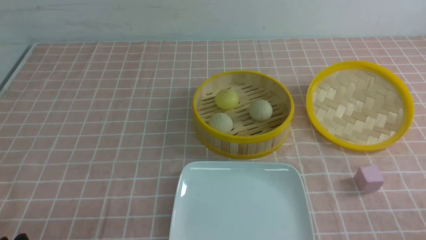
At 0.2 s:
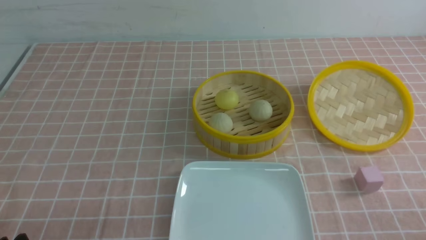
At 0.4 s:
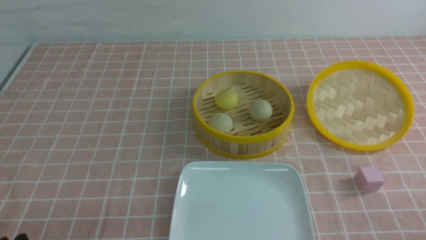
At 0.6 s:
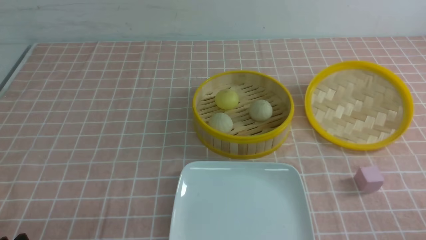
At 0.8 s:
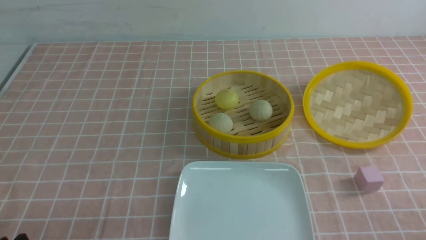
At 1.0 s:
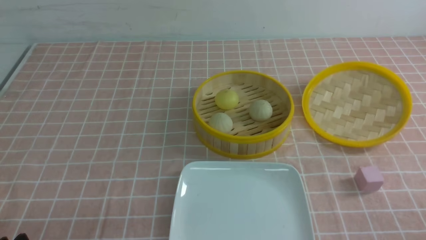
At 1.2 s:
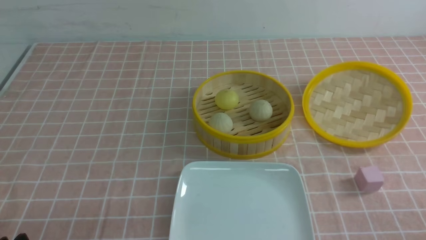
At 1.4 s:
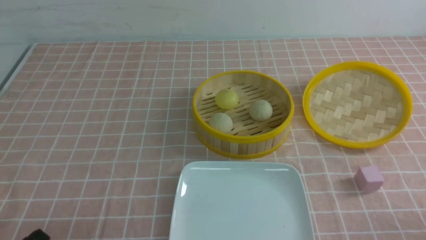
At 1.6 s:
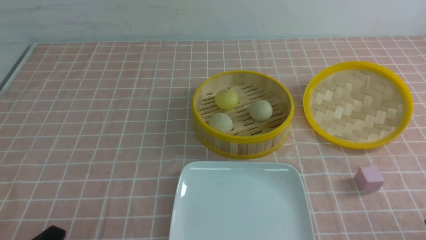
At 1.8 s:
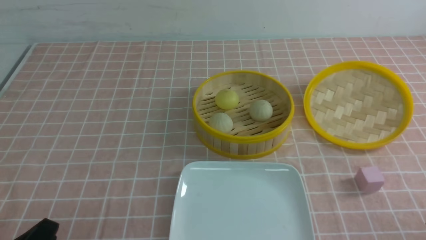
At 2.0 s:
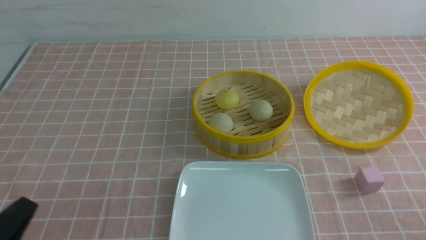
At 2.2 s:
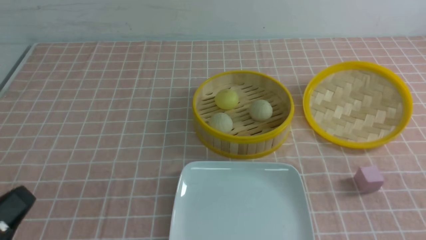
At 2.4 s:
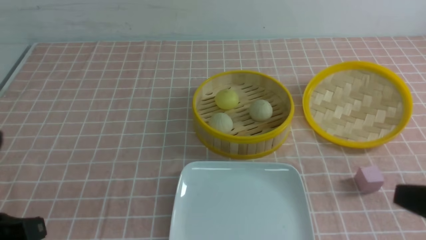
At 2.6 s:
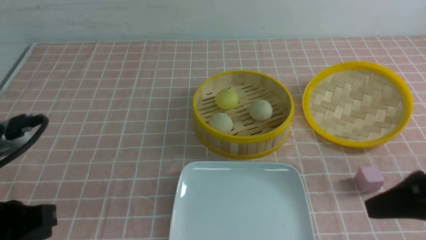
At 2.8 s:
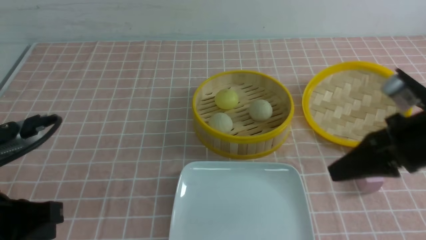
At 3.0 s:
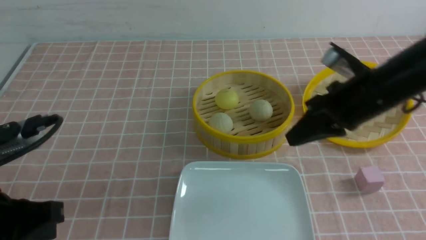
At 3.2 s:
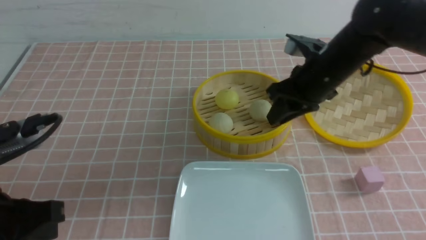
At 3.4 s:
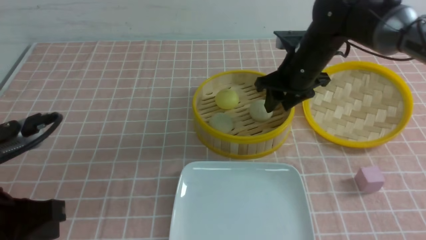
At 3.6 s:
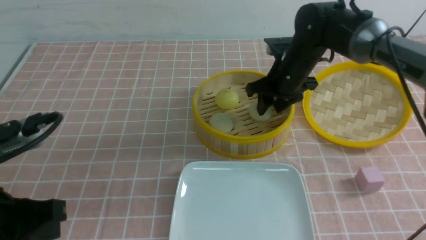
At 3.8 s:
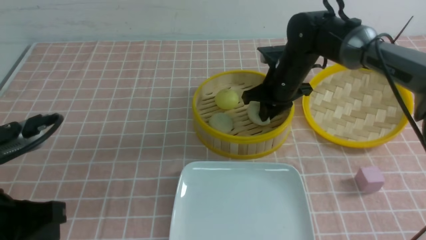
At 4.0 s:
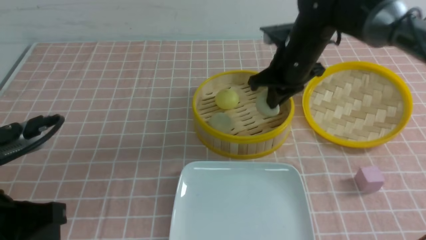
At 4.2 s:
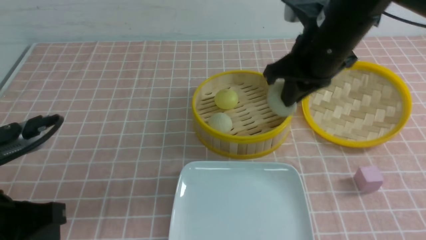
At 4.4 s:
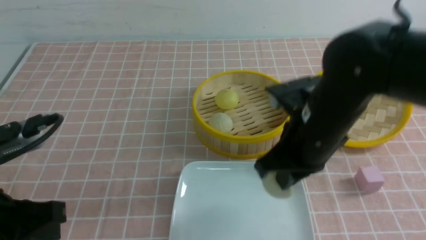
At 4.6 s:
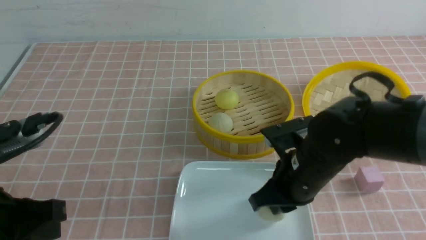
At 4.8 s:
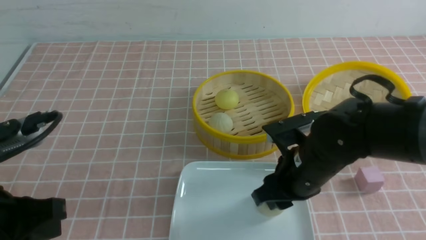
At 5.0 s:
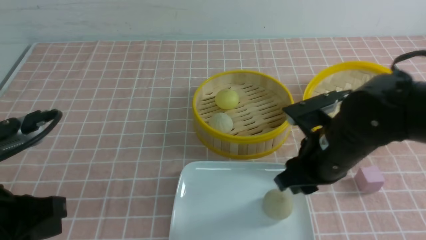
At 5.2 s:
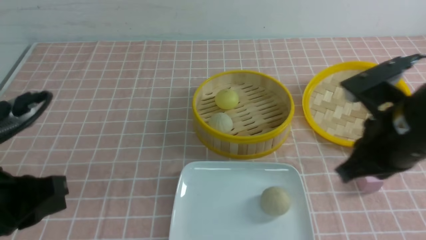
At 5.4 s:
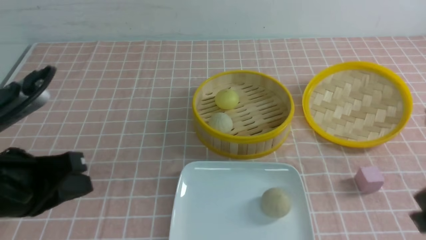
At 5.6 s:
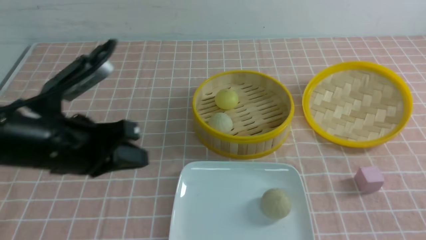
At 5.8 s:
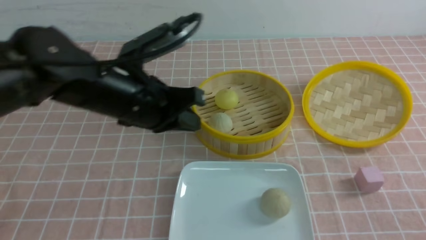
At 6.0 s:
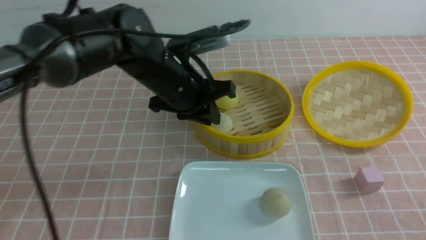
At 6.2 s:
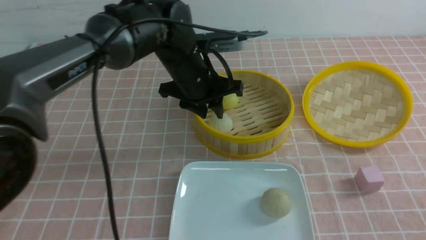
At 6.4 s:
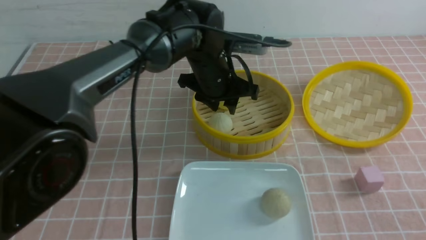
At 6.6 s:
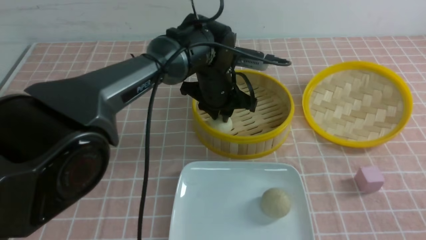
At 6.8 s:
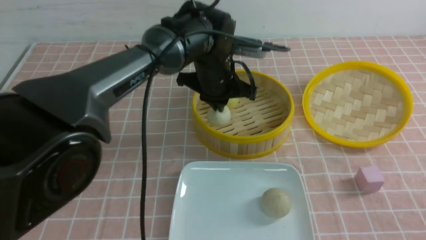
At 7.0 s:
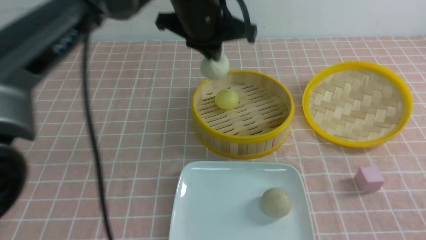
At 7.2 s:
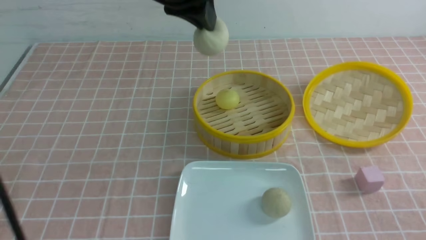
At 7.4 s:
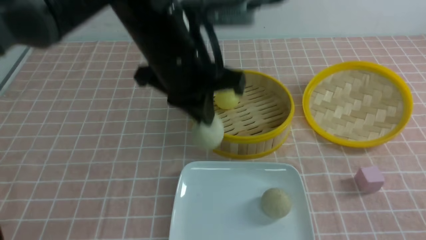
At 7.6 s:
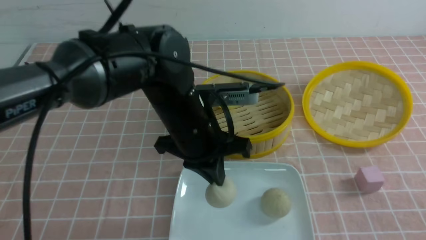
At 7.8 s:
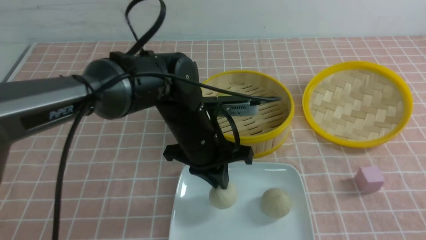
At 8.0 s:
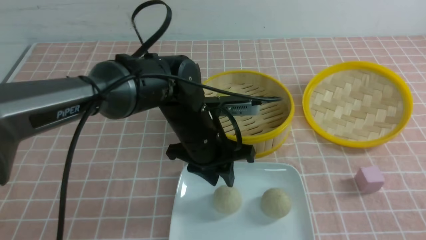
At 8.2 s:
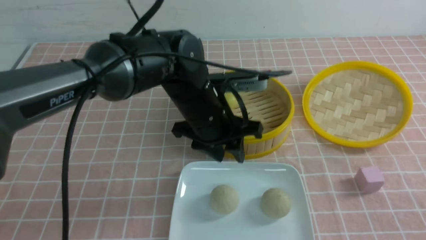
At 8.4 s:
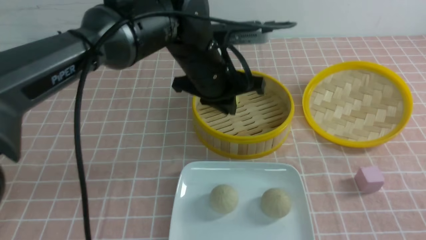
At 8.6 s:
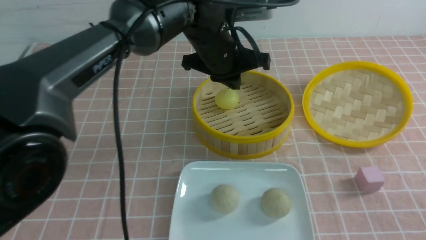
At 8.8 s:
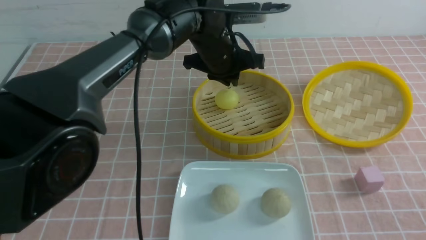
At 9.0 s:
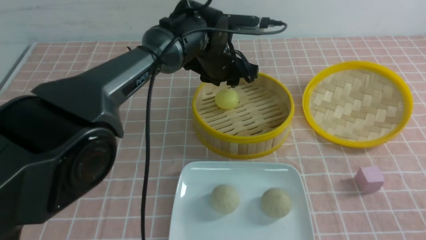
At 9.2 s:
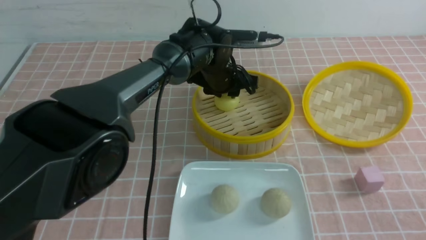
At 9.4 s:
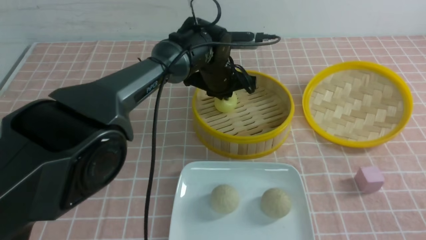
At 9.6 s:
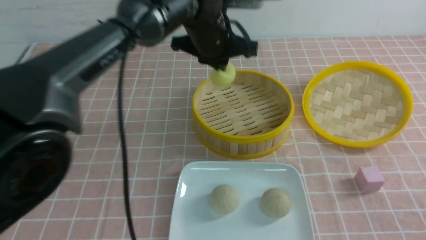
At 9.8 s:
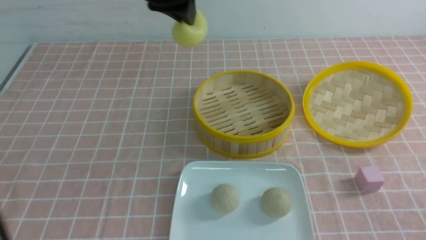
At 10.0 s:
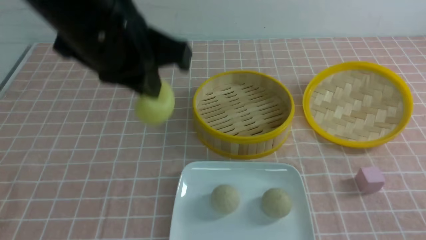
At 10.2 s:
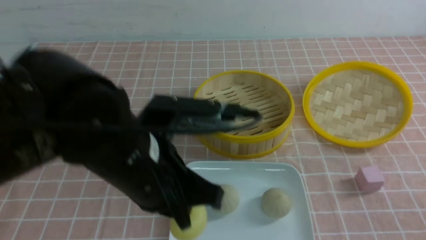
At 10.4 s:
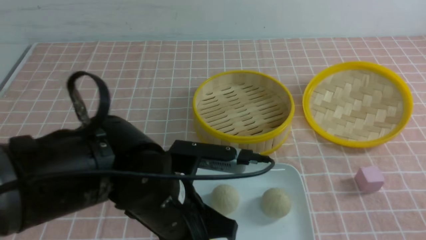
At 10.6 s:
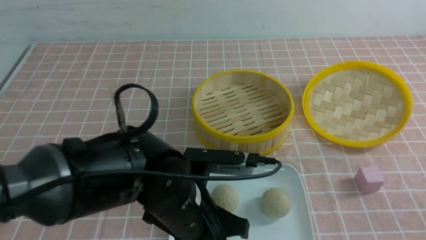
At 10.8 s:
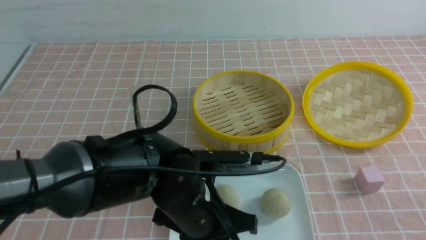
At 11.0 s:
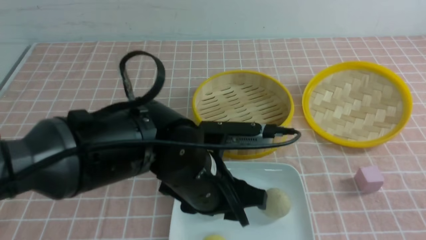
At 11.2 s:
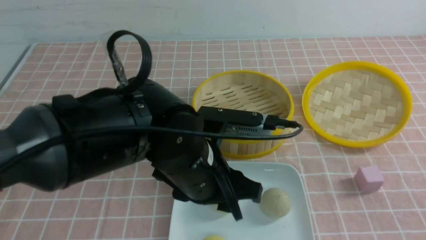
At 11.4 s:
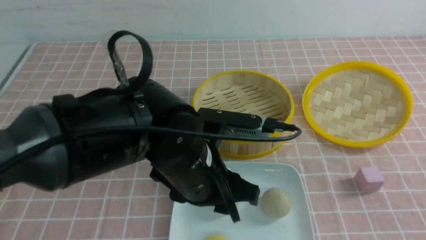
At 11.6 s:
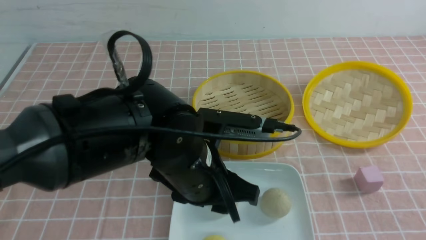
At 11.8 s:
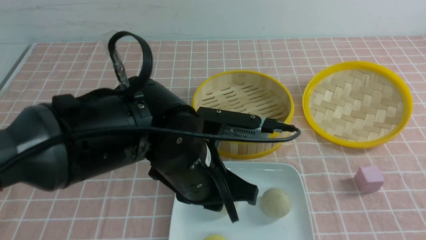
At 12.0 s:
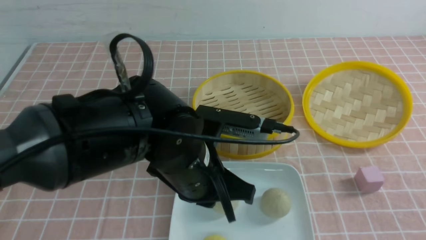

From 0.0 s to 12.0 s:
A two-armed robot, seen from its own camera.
Step, from 0.0 s to 3.8 s: use the right arm to grab the steamed stuffed bun that is closest to it.
Step, from 4.0 s to 4.8 s: use the right arm to put the steamed stuffed bun into the plate.
Step, from 5.0 s to 6.6 s: use the left arm to grab the steamed stuffed bun that is closest to it.
Step, from 6.8 s to 7.8 s: use the left arm to put the steamed stuffed bun into the plate.
Step, from 8.2 s to 9.4 s: use the left arm to grab the steamed stuffed bun that is closest to it.
Step, from 9.6 s to 10.8 s: use the left arm to put the steamed stuffed bun into the plate.
From 1.6 s to 3.0 s: The left gripper shifts roughly 15 cm upward and forward, and closes up. Meanwhile the right gripper moves forward and to the left, some 30 cm, and closes its fingers.
From 3.0 s to 4.4 s: The right gripper heads to the left, covering approximately 10 cm, moves about 15 cm forward and comes back, and opens, then closes once more.
From 4.4 s to 6.0 s: The left gripper heads forward and to the right, covering about 30 cm; the right gripper travels backward and to the right by some 25 cm, and opens, then closes once more.
From 6.0 s to 7.6 s: The left gripper goes some 5 cm backward, and travels upward and back again, about 10 cm each way.
From 7.6 s to 9.0 s: The left gripper is displaced forward by about 15 cm, and opens its fingers.
From 9.0 s to 10.4 s: The left gripper shifts approximately 25 cm backward, and closes.
From 10.4 s to 12.0 s: The left gripper opens, then closes again. The right gripper closes its fingers.

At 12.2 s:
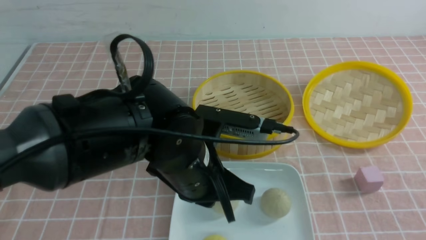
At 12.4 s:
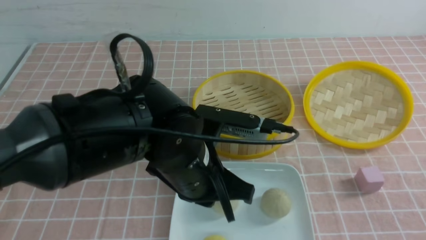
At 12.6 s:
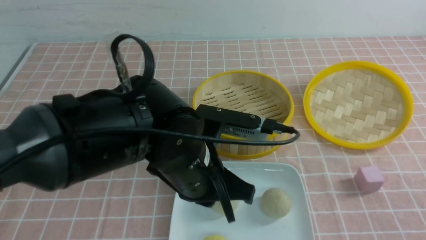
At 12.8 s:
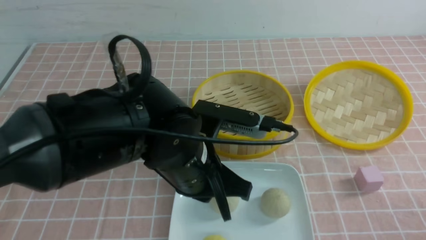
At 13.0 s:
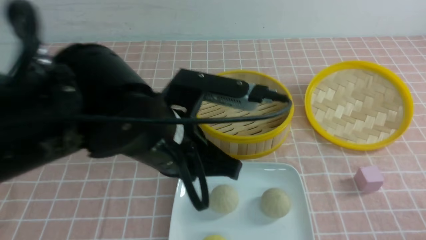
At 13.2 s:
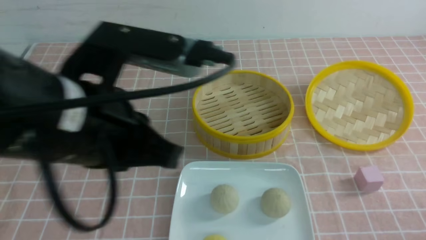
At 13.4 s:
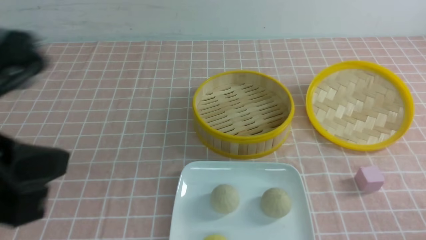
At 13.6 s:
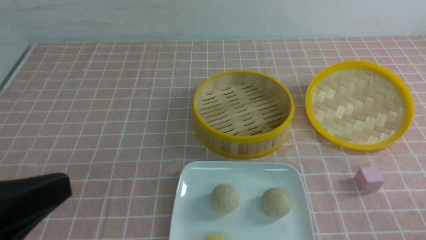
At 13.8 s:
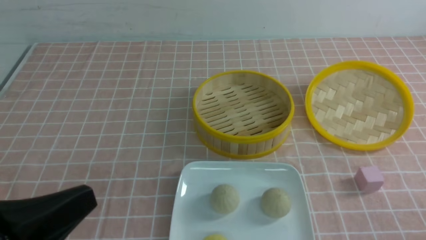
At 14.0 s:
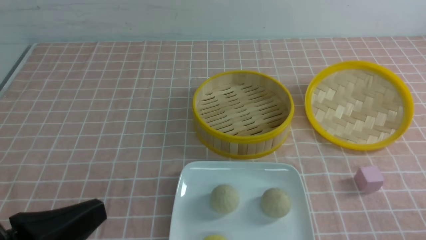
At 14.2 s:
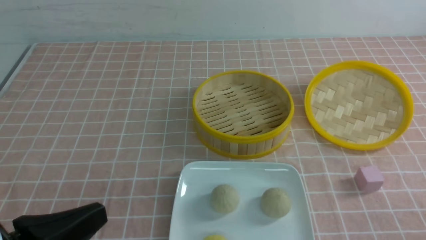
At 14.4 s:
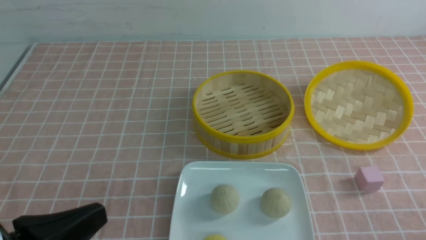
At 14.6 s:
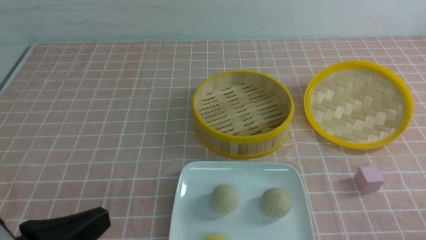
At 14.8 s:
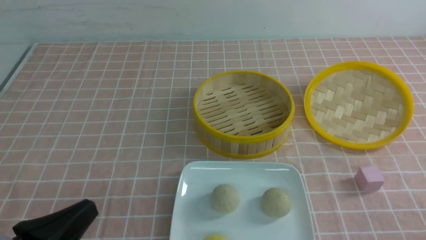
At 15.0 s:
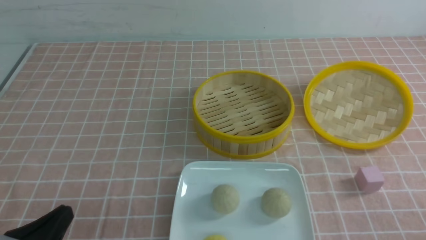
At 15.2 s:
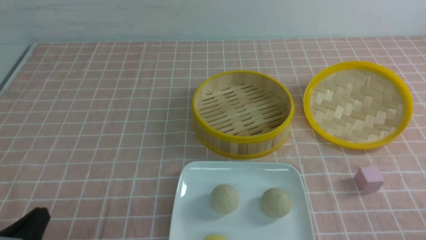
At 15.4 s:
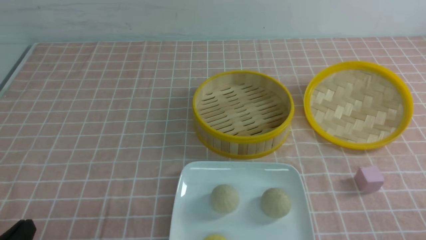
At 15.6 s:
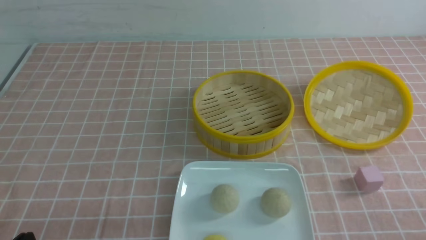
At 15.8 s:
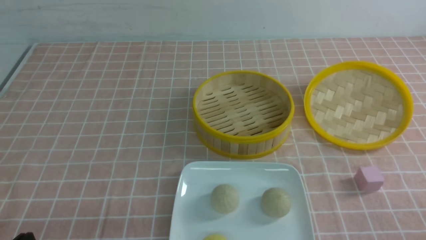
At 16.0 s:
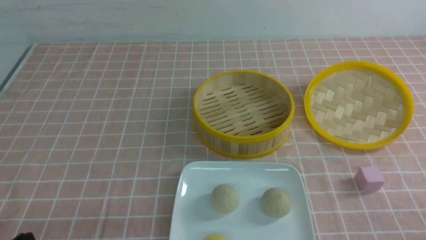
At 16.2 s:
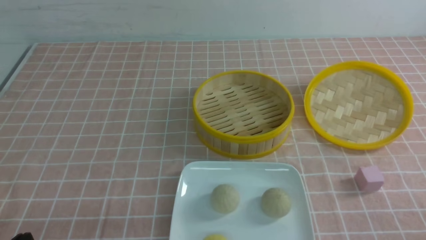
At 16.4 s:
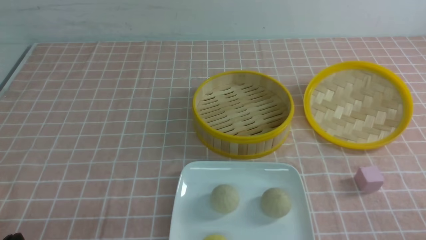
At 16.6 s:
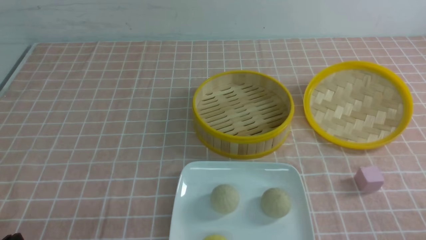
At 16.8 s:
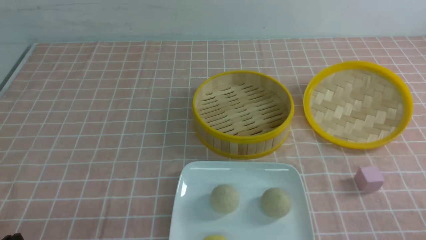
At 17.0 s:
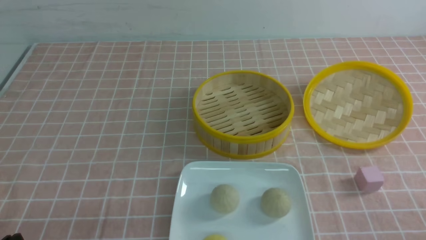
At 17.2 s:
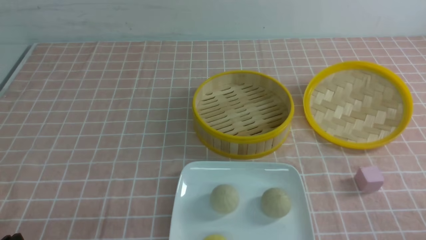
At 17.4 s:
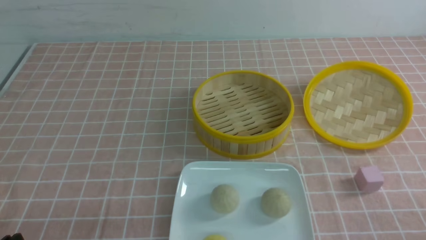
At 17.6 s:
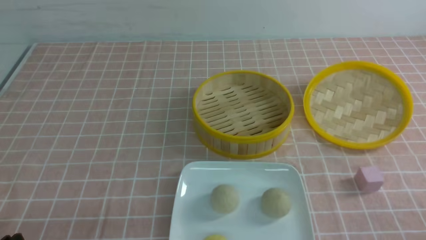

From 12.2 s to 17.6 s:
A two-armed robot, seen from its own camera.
From 12.2 s to 13.6 s: The right gripper travels downward by roughly 10 cm, while the left gripper heads to the left, backward and upward, covering approximately 25 cm.
From 13.6 s to 15.0 s: The left gripper goes roughly 15 cm downward.
From 16.2 s to 17.6 s: Both grippers stay put.
